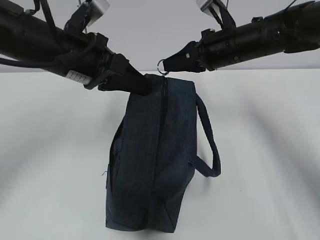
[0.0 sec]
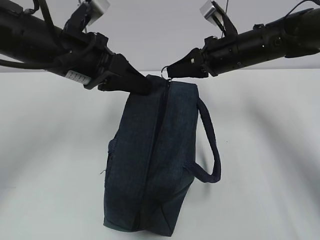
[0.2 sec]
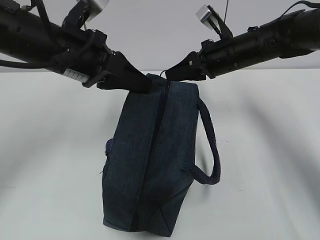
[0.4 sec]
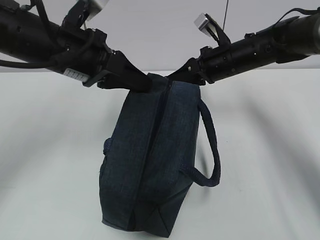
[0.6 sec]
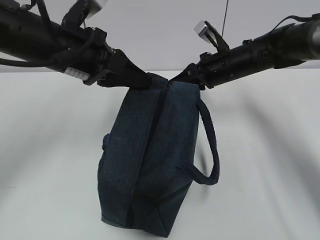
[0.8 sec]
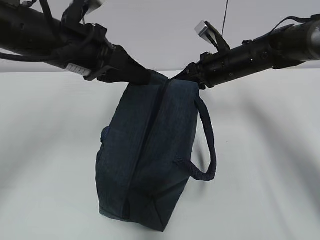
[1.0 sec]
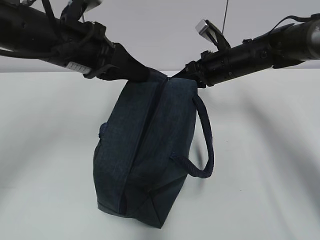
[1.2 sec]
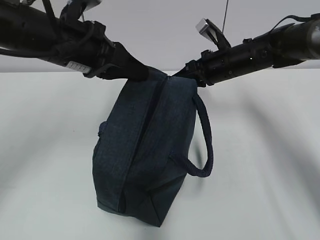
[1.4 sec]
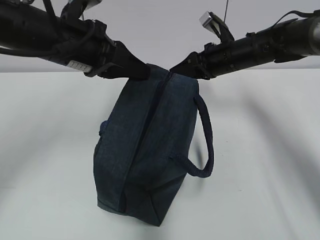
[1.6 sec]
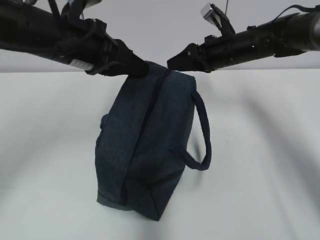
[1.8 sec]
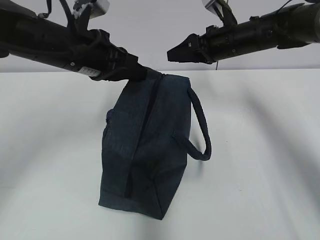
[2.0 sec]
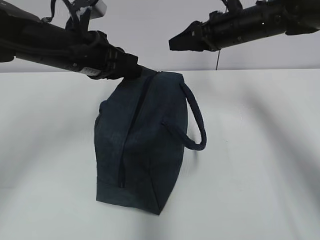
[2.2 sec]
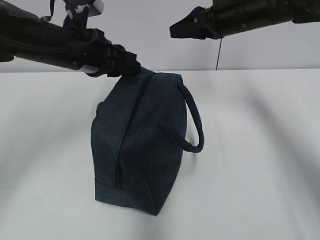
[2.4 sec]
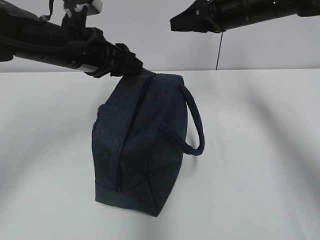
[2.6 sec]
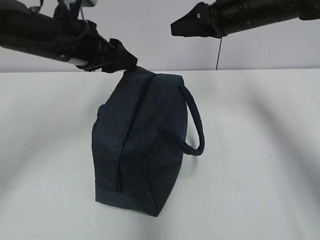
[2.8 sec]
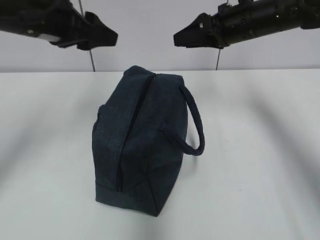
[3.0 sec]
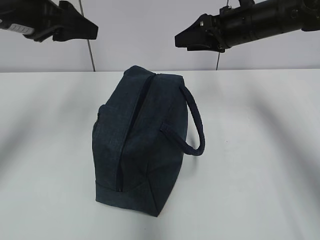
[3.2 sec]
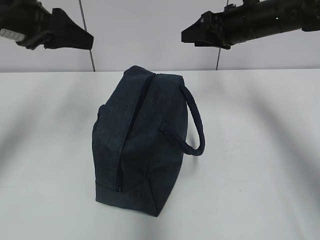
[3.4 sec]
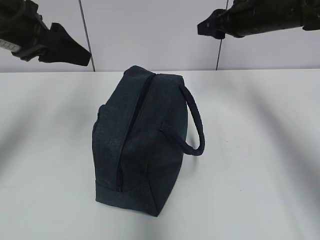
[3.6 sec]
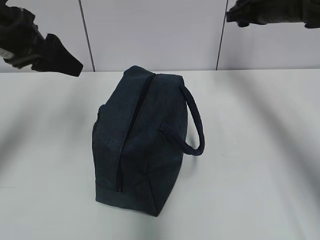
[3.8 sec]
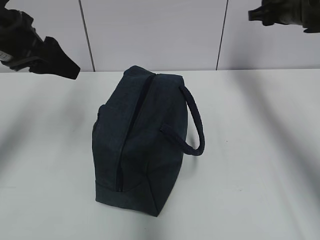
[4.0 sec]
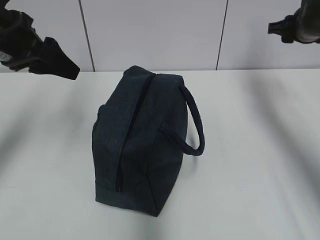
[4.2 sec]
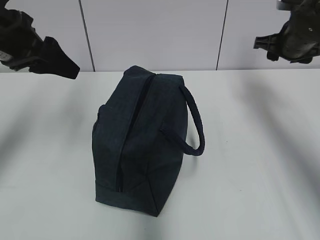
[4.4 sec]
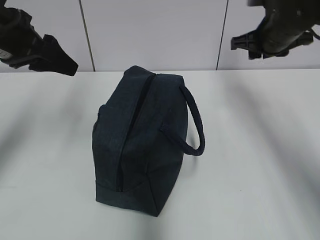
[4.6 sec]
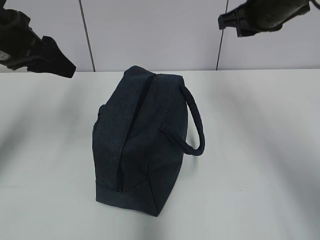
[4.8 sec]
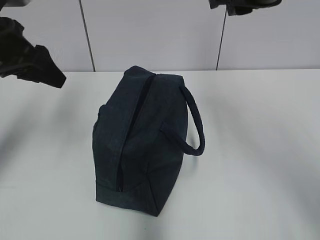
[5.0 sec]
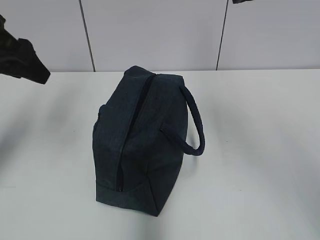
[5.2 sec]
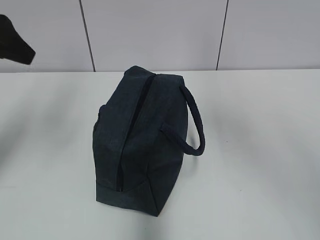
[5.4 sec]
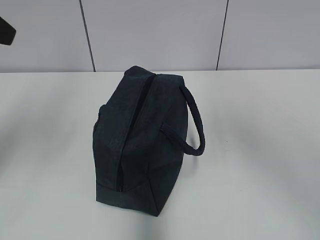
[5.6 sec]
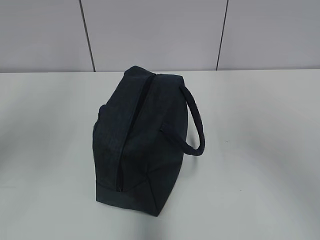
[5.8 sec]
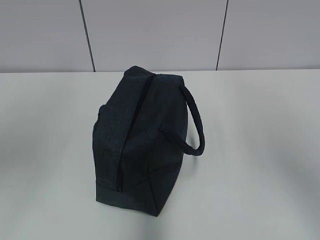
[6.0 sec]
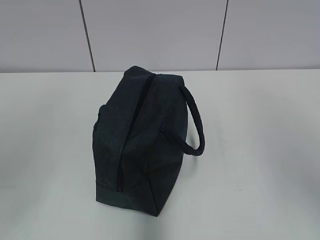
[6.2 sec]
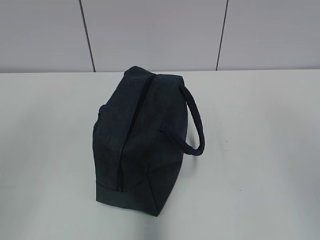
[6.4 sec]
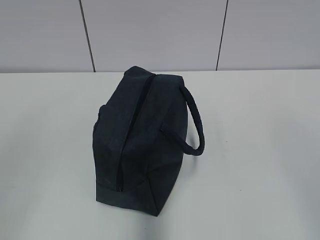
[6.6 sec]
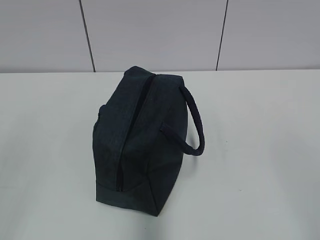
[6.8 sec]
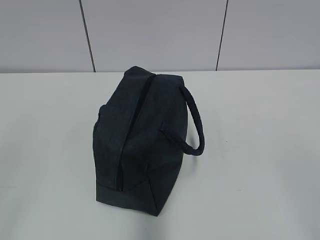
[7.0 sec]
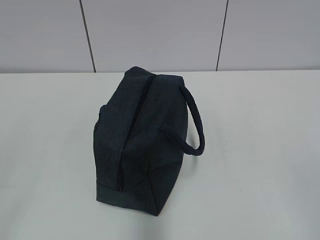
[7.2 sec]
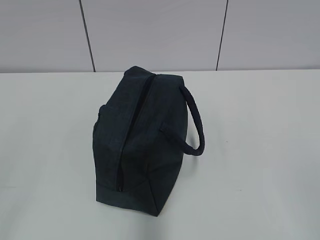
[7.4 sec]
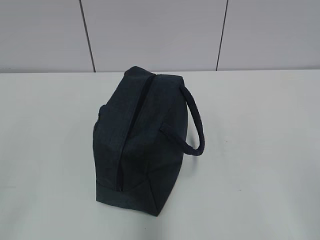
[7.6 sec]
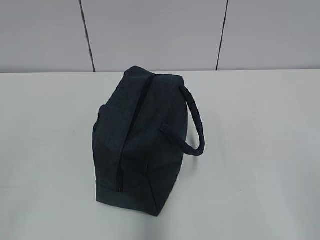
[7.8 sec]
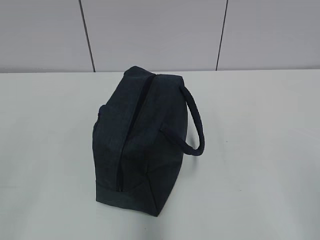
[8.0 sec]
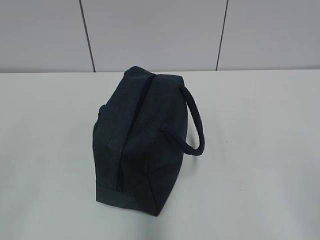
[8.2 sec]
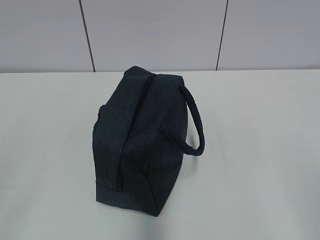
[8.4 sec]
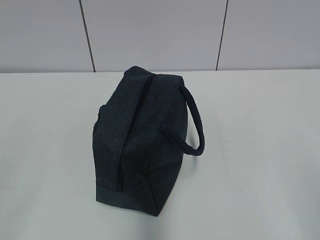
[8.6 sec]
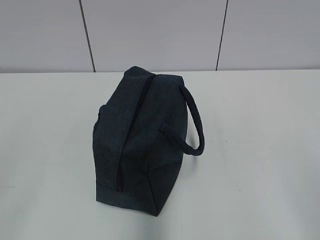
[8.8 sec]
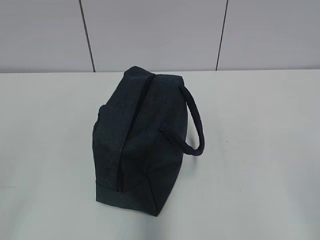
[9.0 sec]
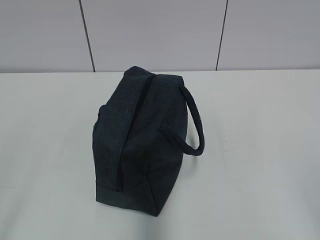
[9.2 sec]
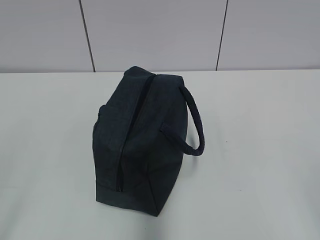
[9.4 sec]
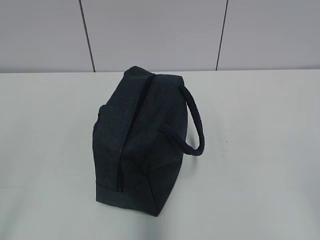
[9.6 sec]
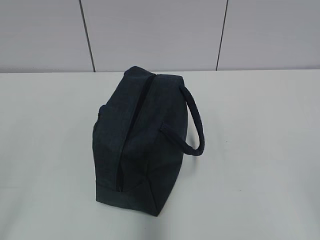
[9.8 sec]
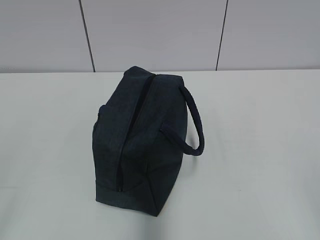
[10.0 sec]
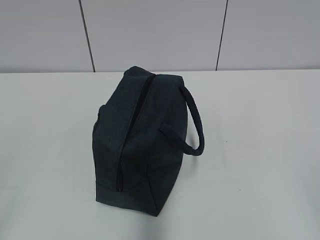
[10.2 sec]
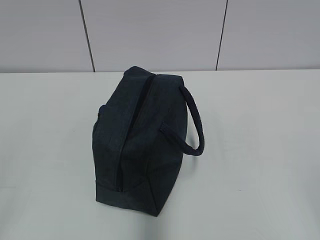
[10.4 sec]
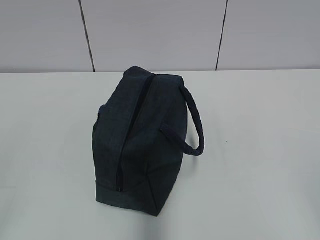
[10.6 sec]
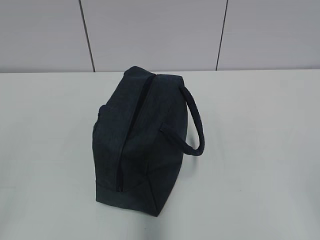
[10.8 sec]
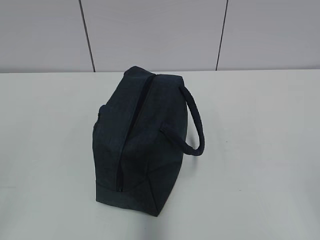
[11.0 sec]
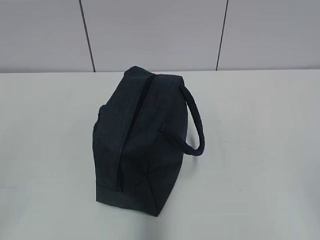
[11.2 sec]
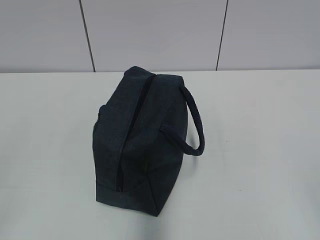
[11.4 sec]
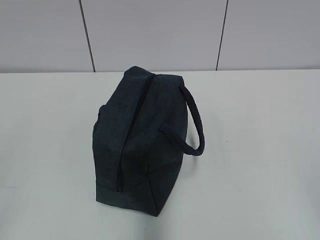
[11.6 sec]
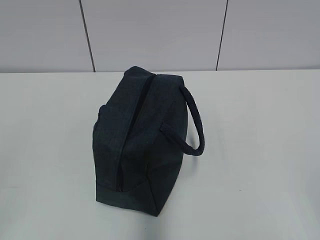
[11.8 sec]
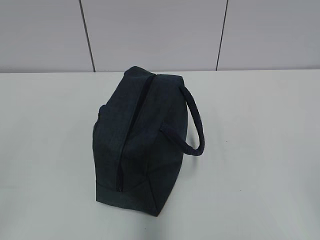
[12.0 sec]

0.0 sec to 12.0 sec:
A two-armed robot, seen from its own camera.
Step, 1.8 sec to 2.6 sec: Grab the lunch bag with your left hand.
0.0 sec to 1.6 sec: The right gripper moves approximately 5 cm, and opens.
1.6 sec to 3.0 sec: The right gripper heads upward, covering about 10 cm. Meanwhile the left gripper moves some 5 cm, and opens.
3.0 sec to 4.4 sec: The left gripper moves to the left, about 5 cm. Meanwhile the right gripper travels to the right by roughly 10 cm.
4.4 sec to 6.0 sec: The right gripper is displaced backward and upward by about 35 cm; the left gripper travels backward and upward by about 20 cm.
6.0 sec to 7.6 sec: The two grippers go roughly 25 cm backward and downward. The right gripper opens its fingers.
10.4 sec to 12.0 sec: Neither gripper changes place.

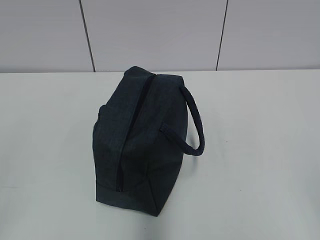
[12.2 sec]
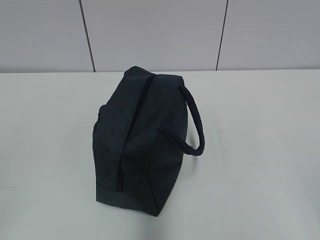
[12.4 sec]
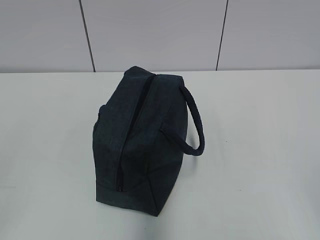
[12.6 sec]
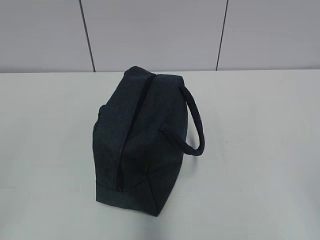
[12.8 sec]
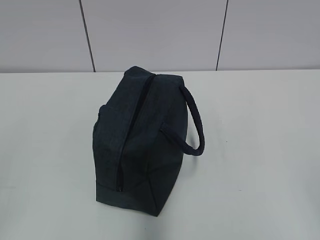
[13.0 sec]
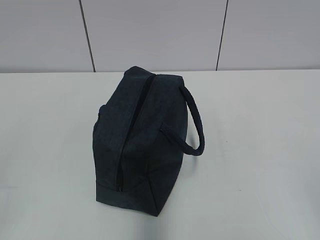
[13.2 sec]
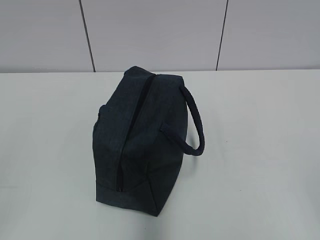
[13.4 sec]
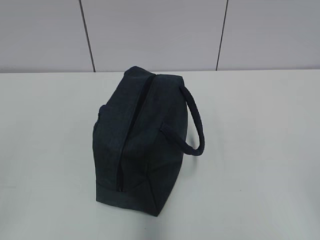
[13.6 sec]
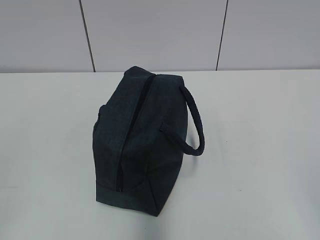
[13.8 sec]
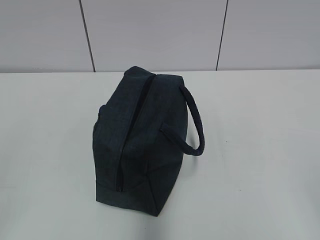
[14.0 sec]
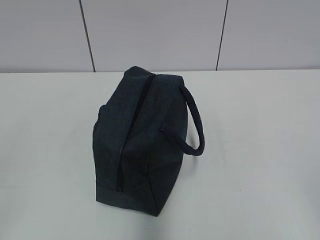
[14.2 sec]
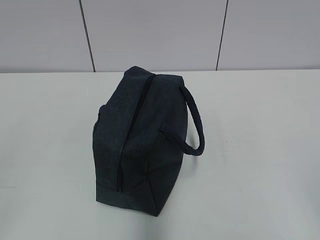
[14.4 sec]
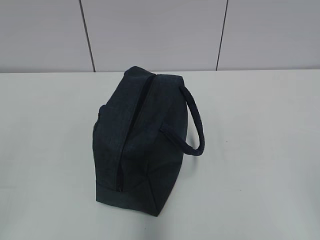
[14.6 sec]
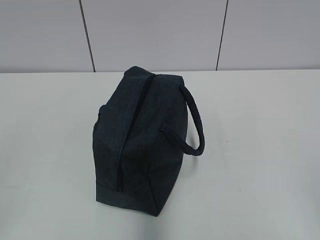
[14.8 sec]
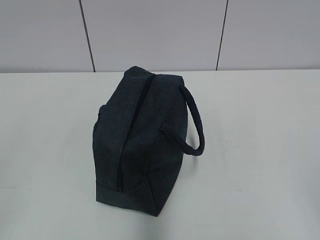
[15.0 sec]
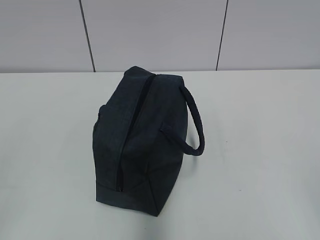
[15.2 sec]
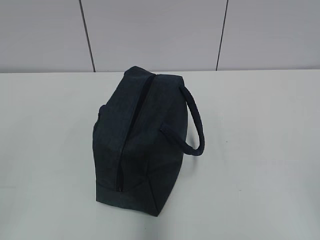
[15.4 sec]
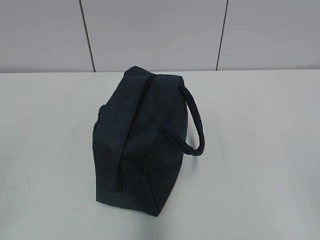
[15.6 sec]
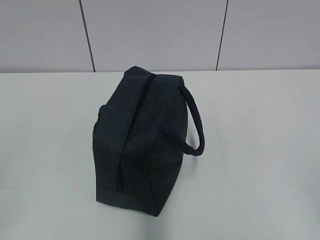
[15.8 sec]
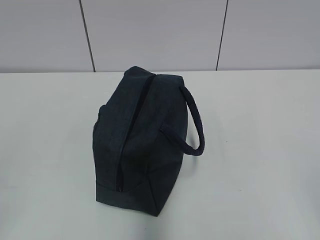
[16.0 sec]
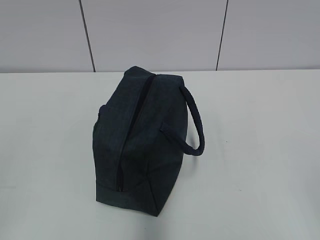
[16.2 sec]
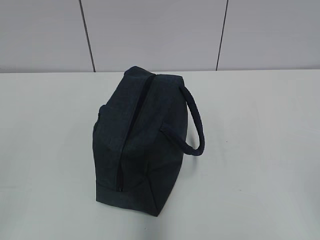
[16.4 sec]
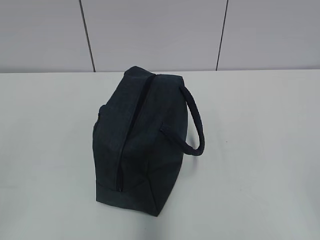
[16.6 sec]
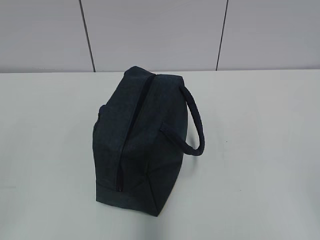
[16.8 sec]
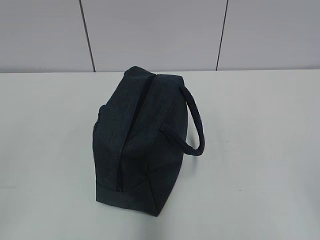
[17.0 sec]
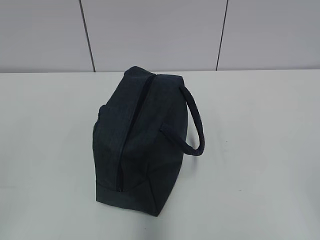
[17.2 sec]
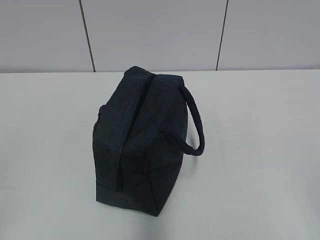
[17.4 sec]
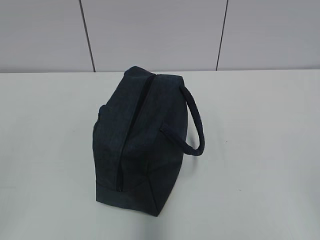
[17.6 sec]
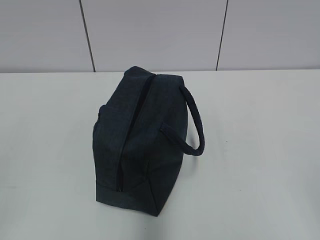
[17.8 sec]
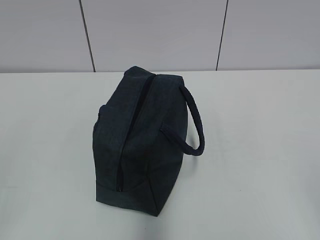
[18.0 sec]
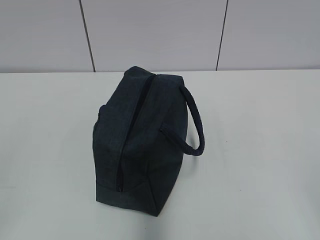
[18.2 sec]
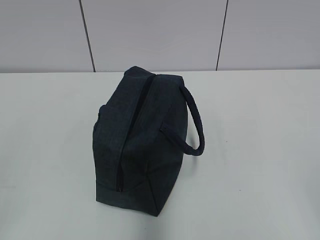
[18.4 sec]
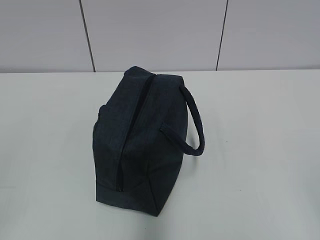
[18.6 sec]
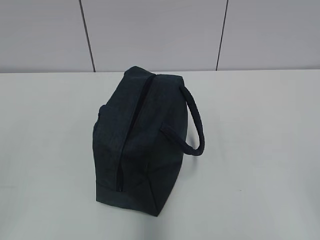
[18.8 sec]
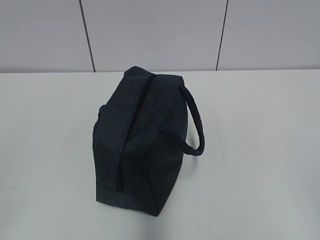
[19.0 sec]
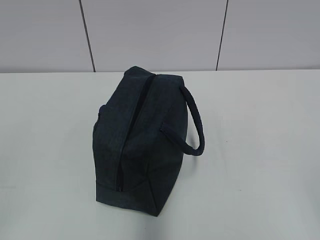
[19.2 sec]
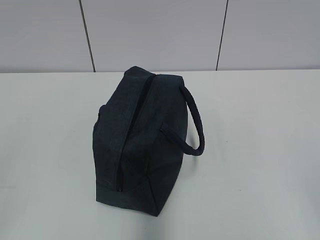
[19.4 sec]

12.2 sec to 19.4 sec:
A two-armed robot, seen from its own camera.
12.2 sec to 19.4 sec: Both grippers stay put.
